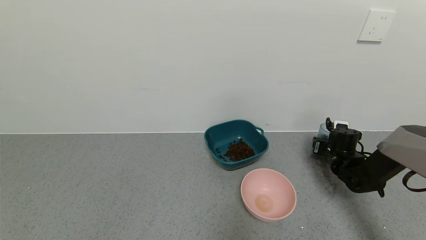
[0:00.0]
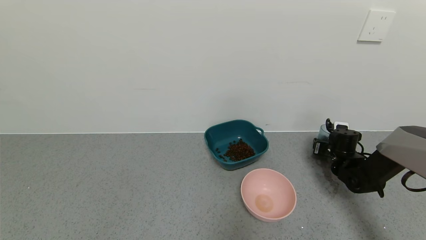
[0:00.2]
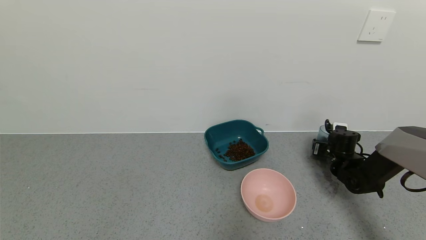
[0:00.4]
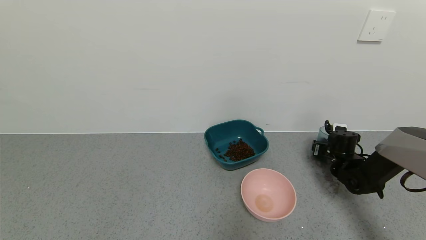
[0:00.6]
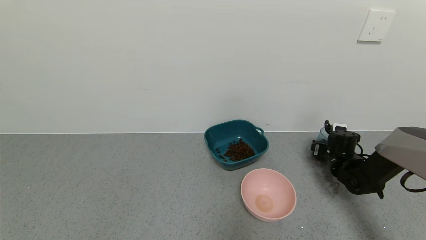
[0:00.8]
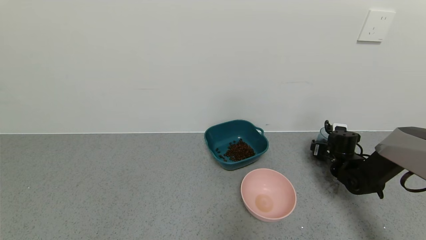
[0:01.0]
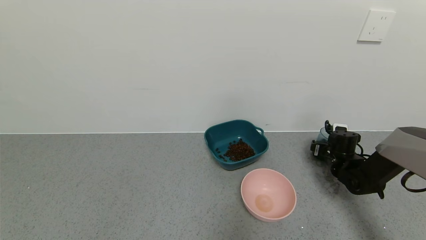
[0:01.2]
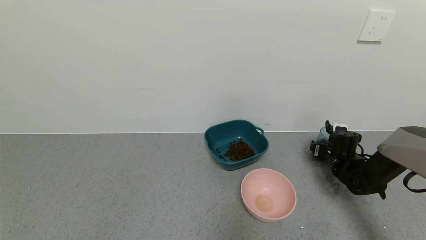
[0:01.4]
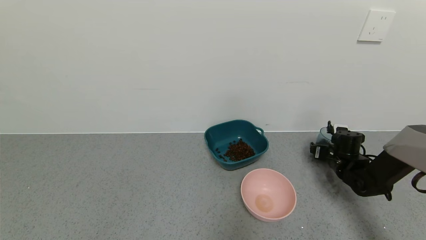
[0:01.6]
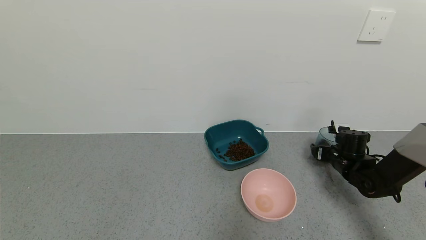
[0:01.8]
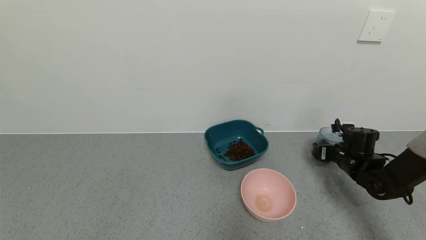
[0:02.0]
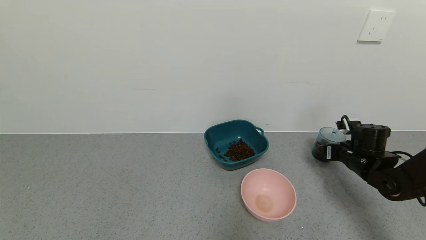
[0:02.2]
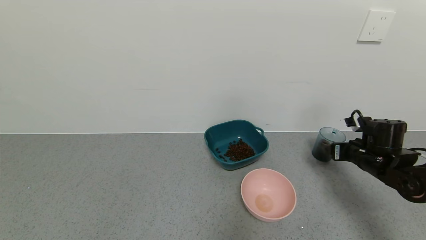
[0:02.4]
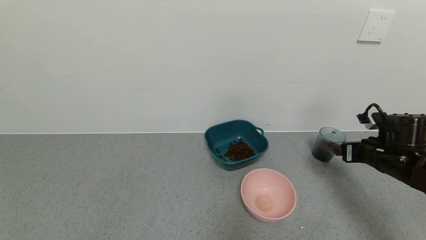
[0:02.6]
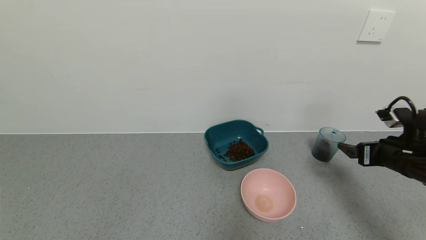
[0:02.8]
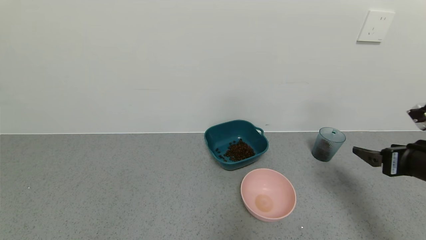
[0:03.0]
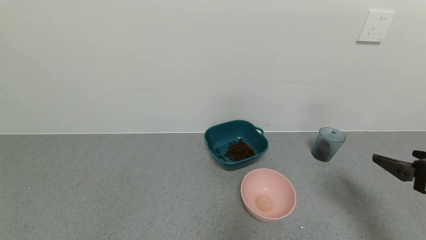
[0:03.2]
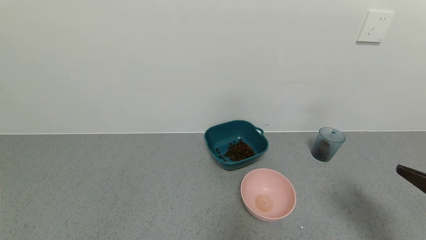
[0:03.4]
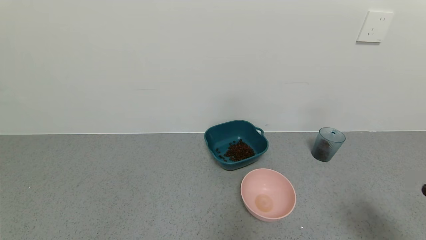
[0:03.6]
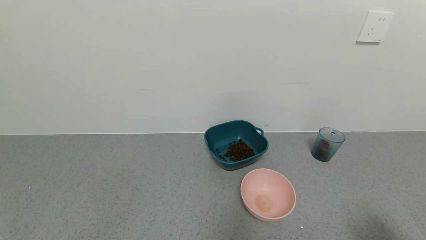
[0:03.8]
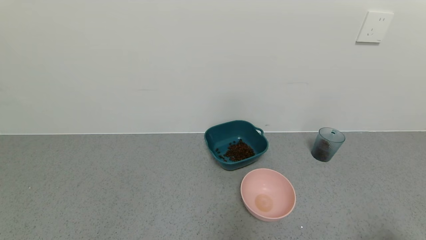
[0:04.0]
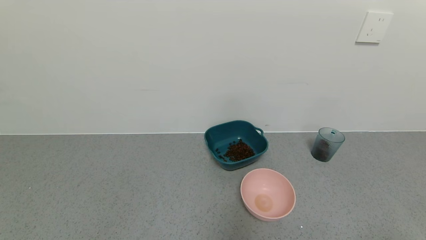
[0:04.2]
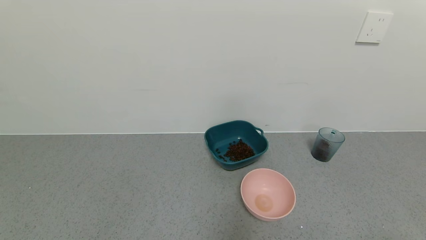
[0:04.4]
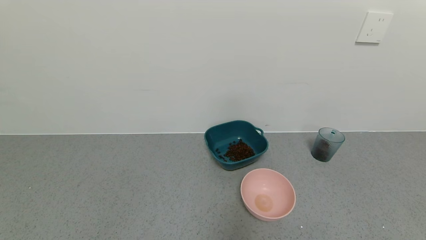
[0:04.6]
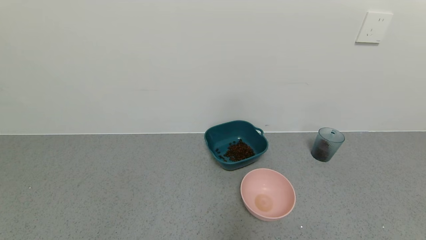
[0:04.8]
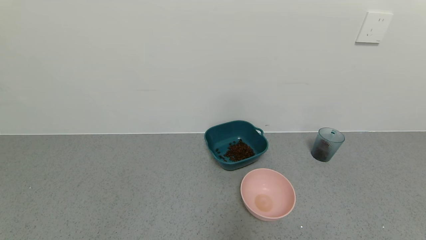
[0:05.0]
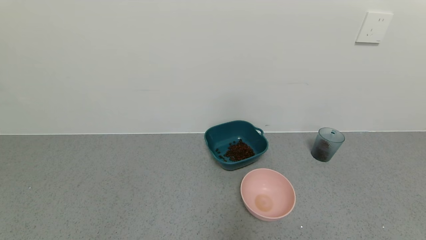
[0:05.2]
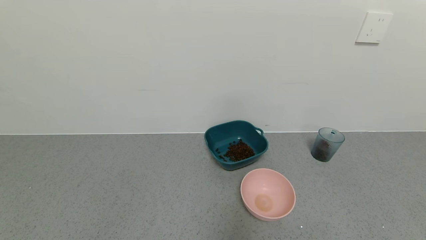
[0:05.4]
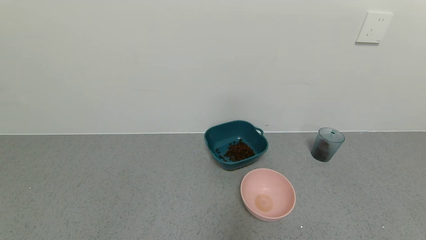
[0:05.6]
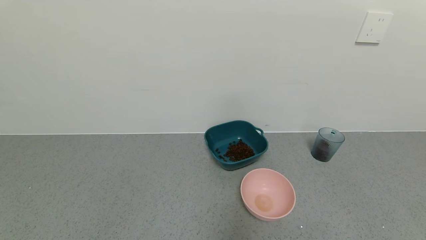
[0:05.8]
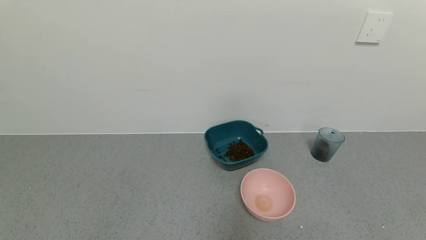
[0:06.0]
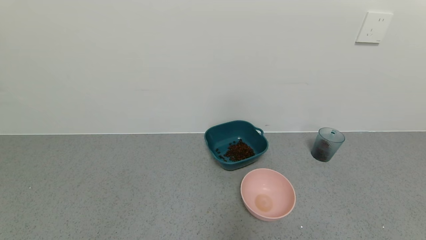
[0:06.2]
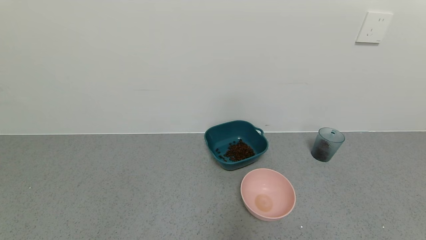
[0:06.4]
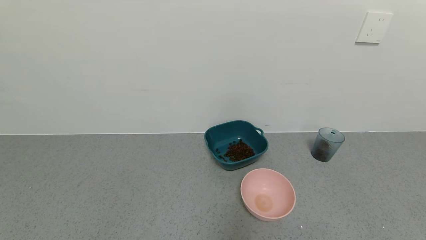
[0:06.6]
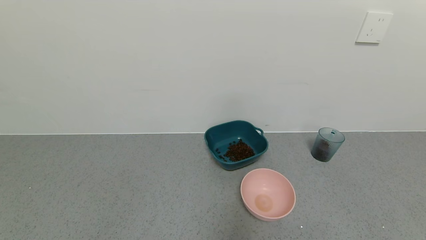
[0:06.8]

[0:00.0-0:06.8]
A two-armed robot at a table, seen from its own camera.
Task of the whole recording: use a gripper to pick up the cup and pour the solid into a bowl or tray.
Step, 0:00.0 to 0:02.4: Place the glass cup with the right gripper.
0:00.0 to 0:01.4: The right gripper opens.
0:01.4 to 0:02.8: The right gripper moves backward and upward, some 20 cm.
0:02.8 to 0:04.0: The right gripper travels backward by approximately 25 cm.

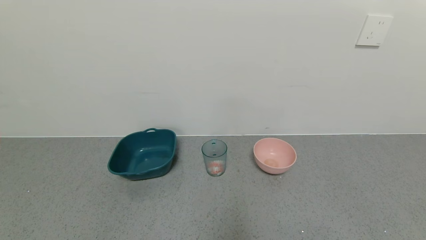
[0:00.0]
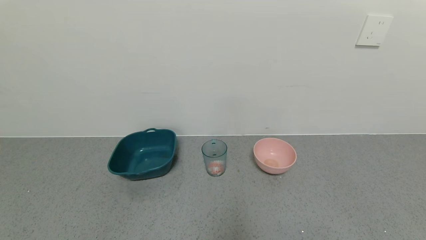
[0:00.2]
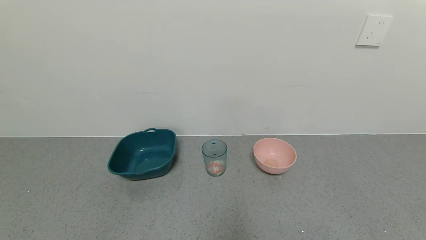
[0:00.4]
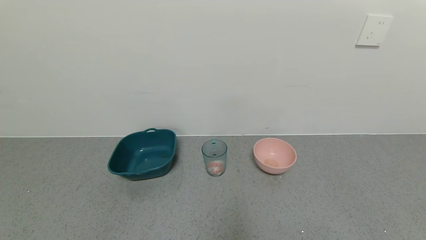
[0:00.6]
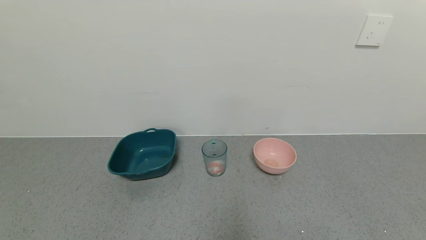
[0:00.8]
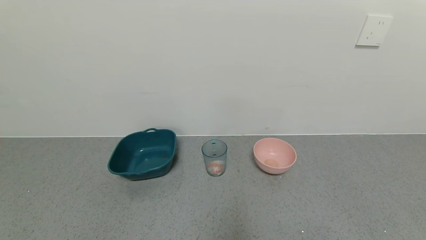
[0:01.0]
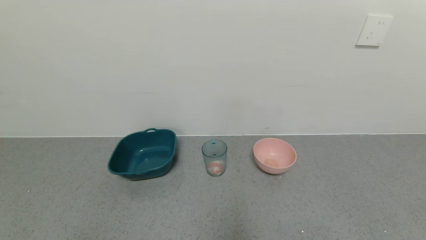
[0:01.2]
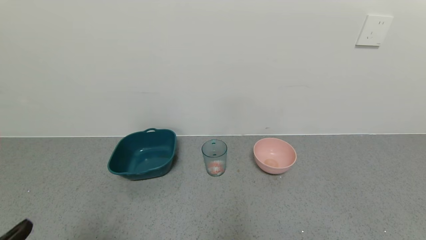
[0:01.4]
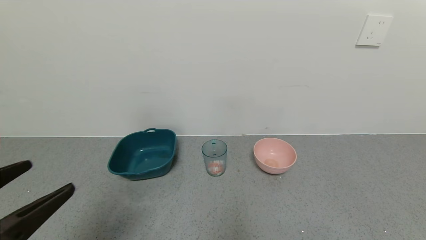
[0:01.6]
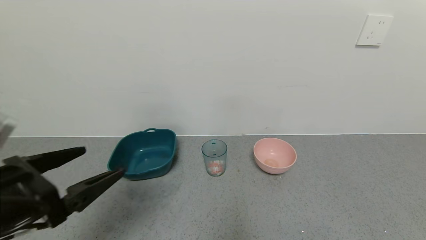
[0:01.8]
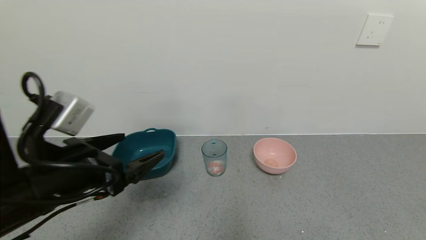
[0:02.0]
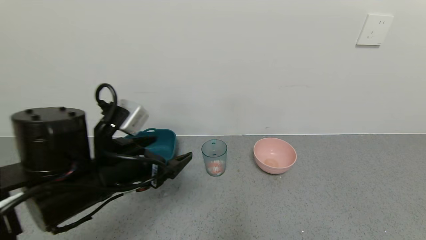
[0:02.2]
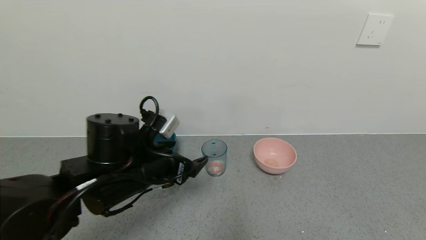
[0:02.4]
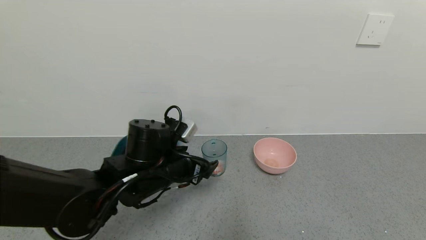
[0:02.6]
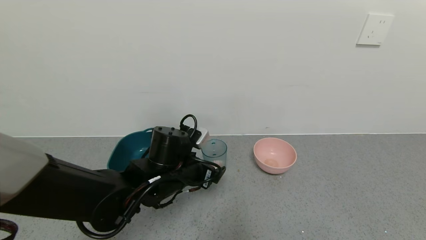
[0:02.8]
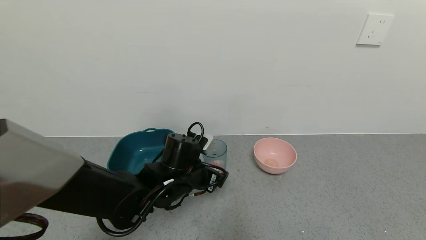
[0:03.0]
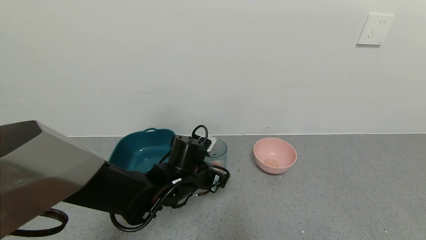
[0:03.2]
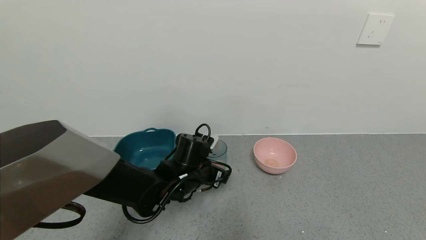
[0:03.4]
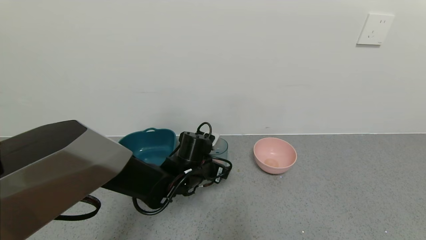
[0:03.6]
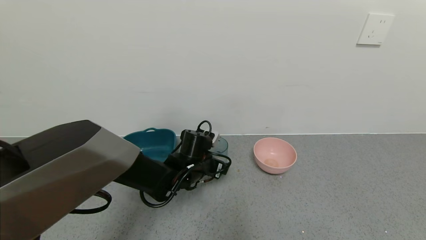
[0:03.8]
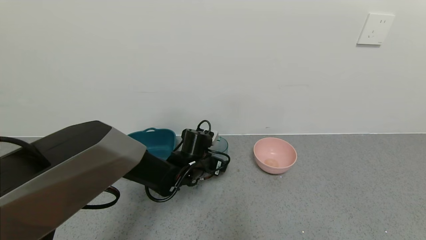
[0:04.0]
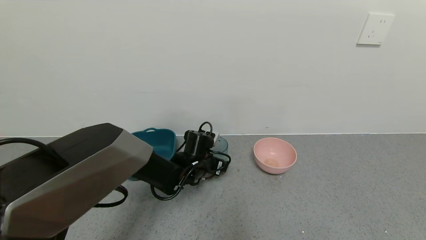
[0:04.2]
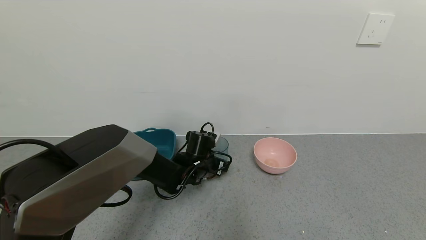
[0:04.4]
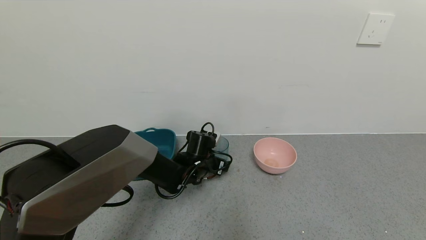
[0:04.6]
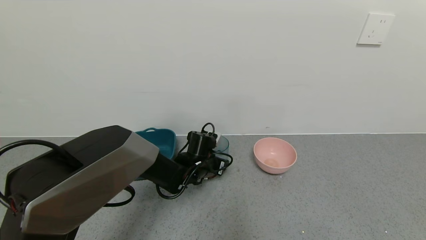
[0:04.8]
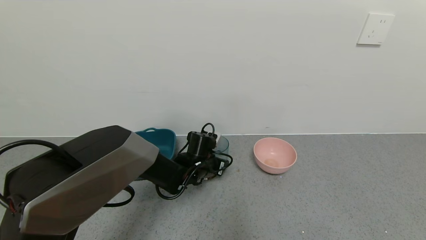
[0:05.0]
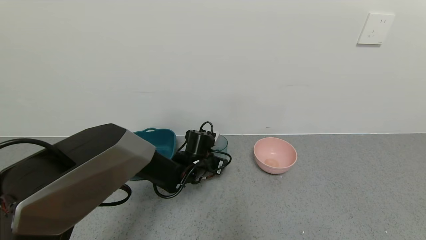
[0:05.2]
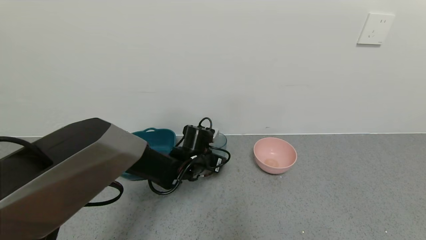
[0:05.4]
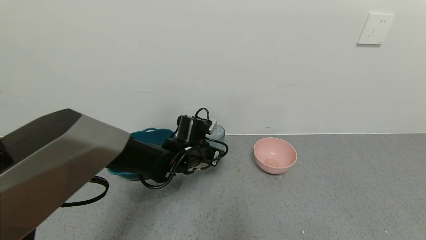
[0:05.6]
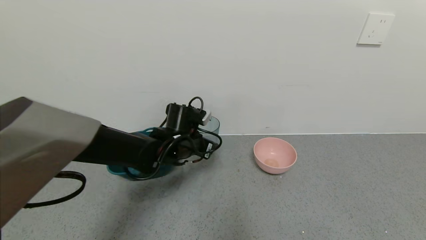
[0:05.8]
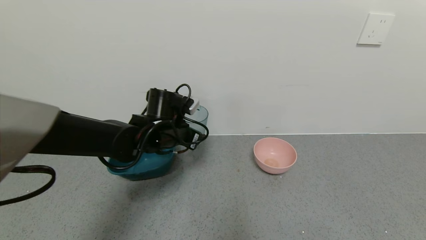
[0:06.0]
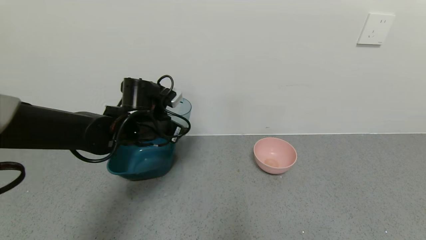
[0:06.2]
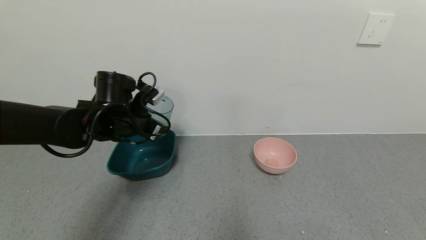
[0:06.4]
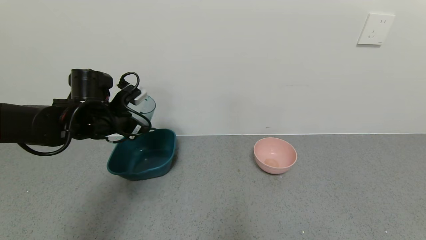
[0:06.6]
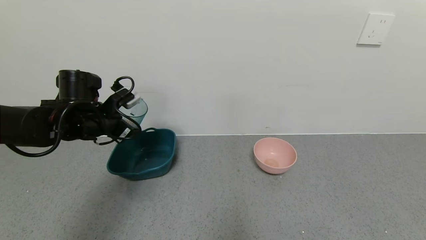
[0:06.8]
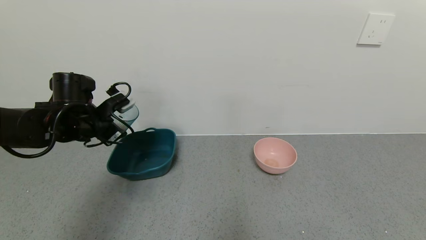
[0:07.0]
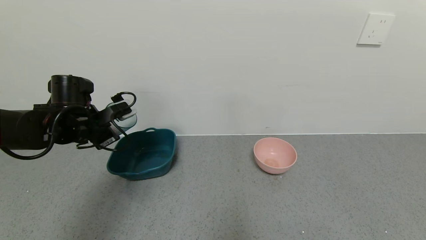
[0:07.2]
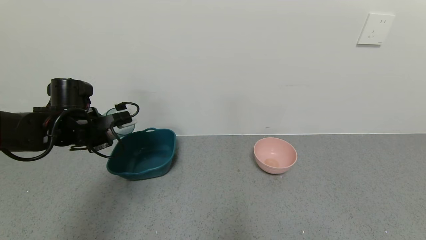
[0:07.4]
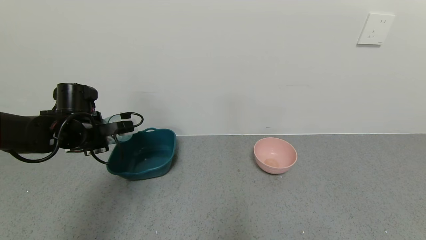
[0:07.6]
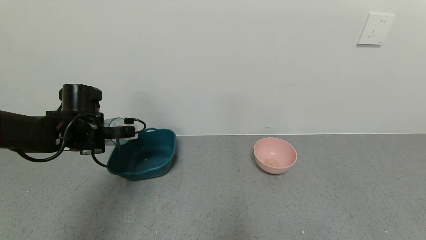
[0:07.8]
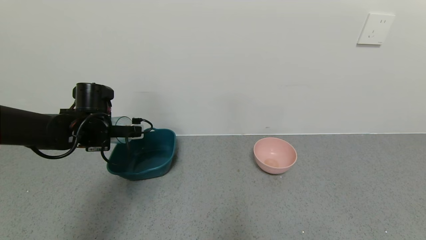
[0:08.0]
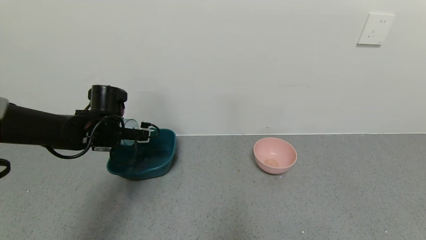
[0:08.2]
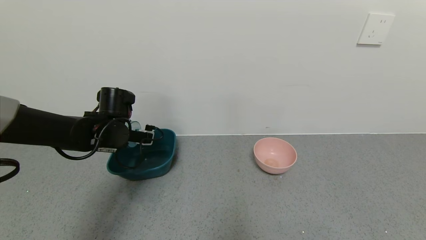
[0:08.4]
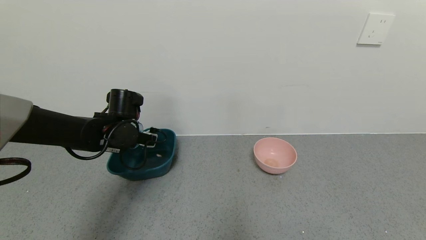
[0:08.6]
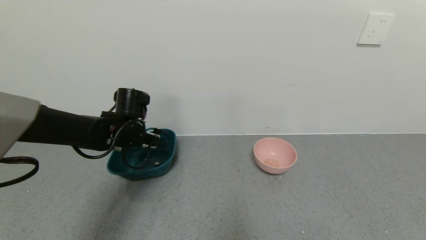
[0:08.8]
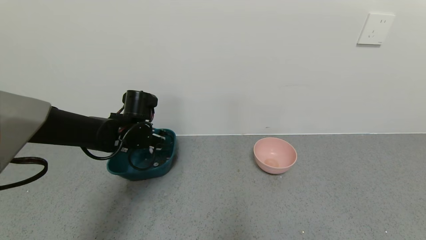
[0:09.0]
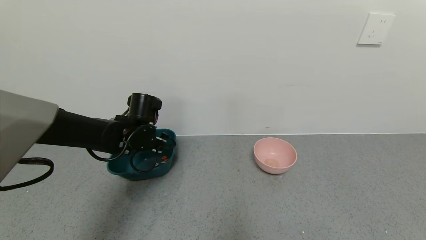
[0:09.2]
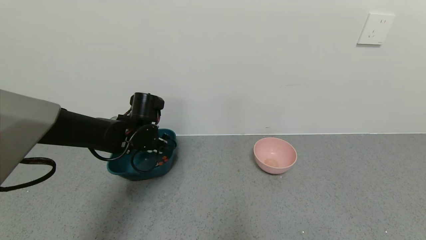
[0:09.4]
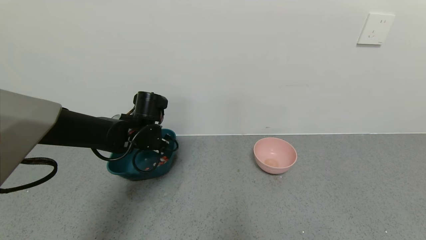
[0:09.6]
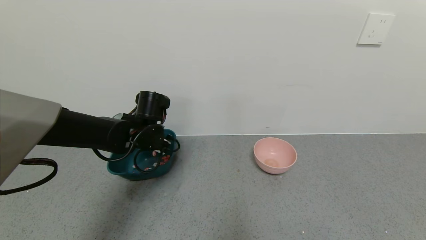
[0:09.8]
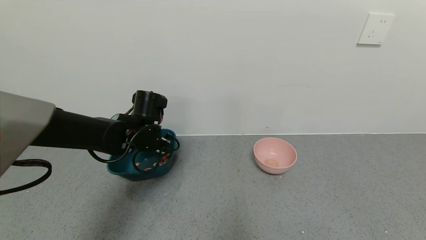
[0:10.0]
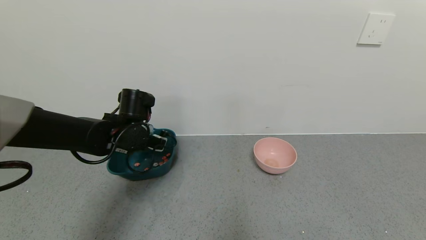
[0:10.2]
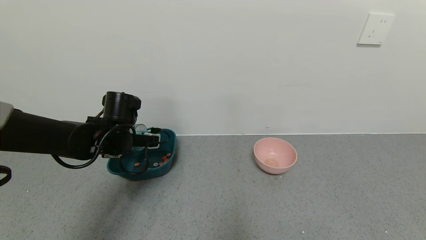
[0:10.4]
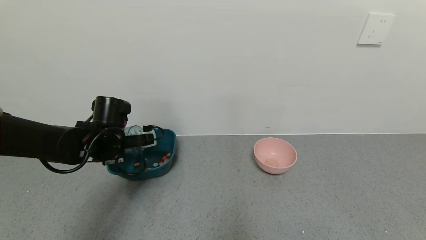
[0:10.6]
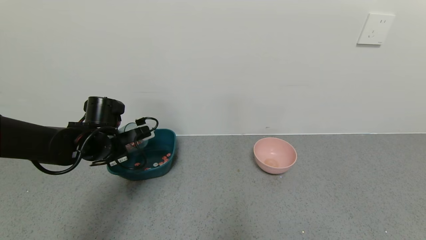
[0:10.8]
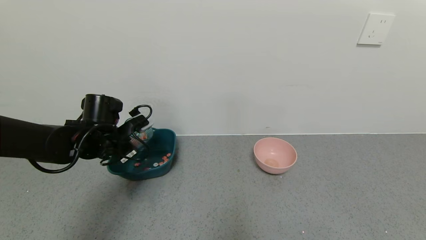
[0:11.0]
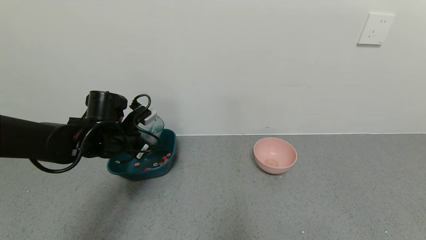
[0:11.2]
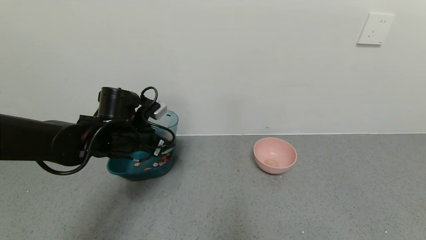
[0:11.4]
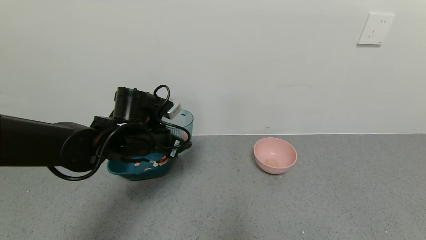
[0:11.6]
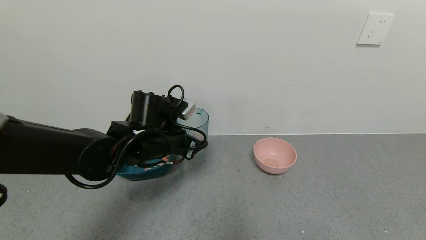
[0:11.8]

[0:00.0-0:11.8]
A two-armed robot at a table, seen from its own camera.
Task of the whole recording: use a gripper to pick up the cup and pour the solid into a bowl or tray.
Step, 0:00.0 to 0:04.6: Grasp the glass of shrimp with the left gripper.
Step, 0:04.8 to 0:10.4: Pour the shrimp beans into the green bowl with the left gripper.
0:01.4 to 0:03.0: The left gripper travels forward and to the right by roughly 35 cm.
0:03.0 to 0:04.4: The left gripper moves forward and downward, roughly 10 cm.
0:04.4 to 0:06.0: The left gripper is displaced upward and to the left by approximately 15 cm, and closes its fingers.
0:06.0 to 0:07.4: The left gripper goes approximately 20 cm to the left.
0:07.4 to 0:08.8: The left gripper travels to the right by some 10 cm.
0:10.4 to 0:11.8: The left gripper is displaced to the right by roughly 10 cm.
